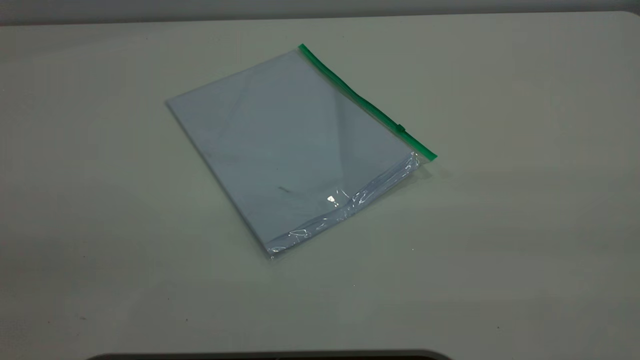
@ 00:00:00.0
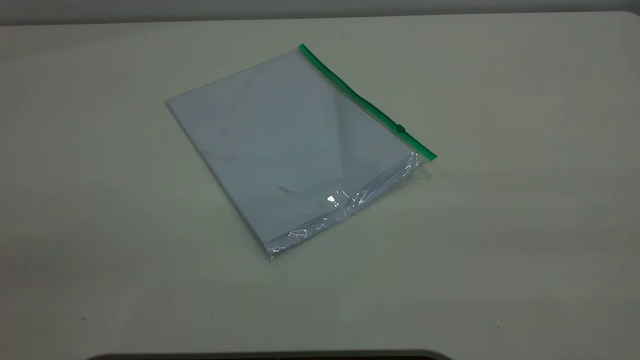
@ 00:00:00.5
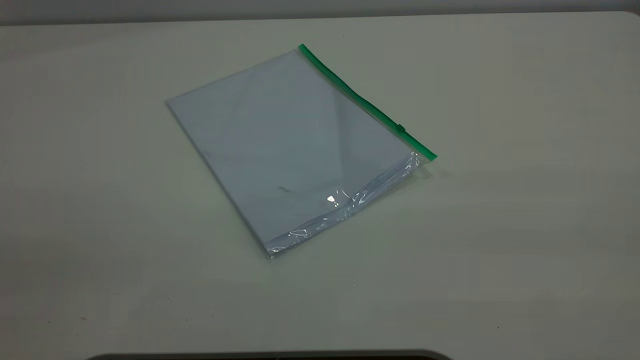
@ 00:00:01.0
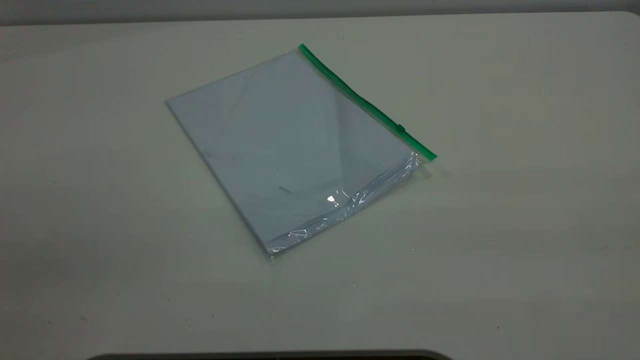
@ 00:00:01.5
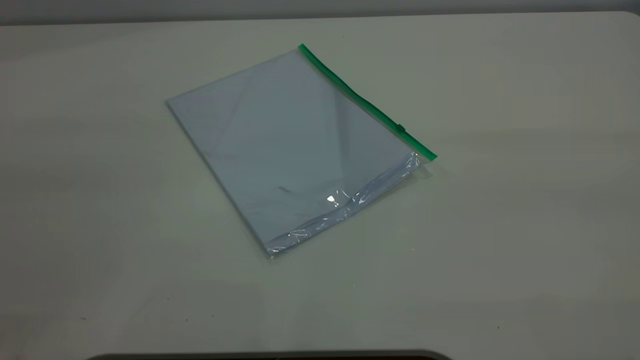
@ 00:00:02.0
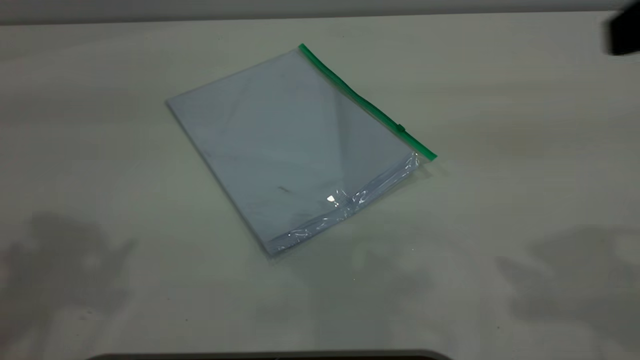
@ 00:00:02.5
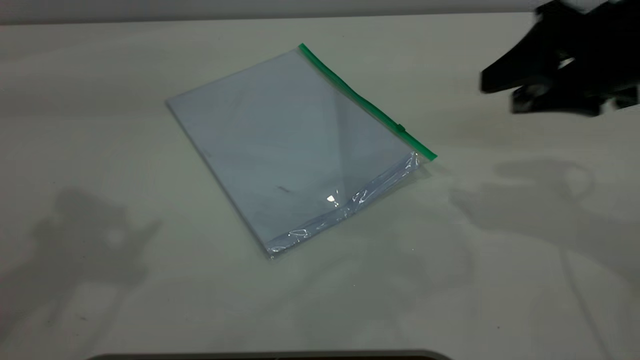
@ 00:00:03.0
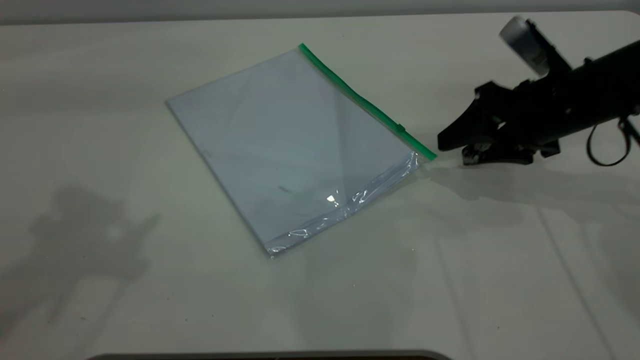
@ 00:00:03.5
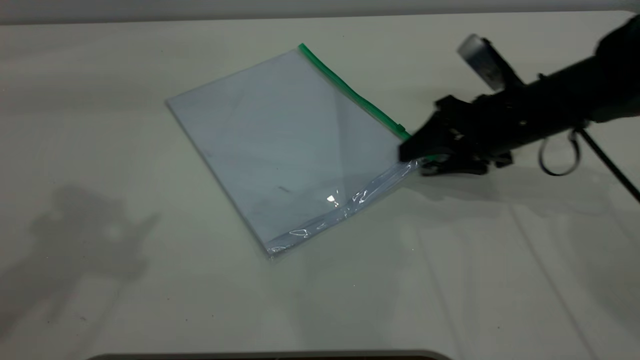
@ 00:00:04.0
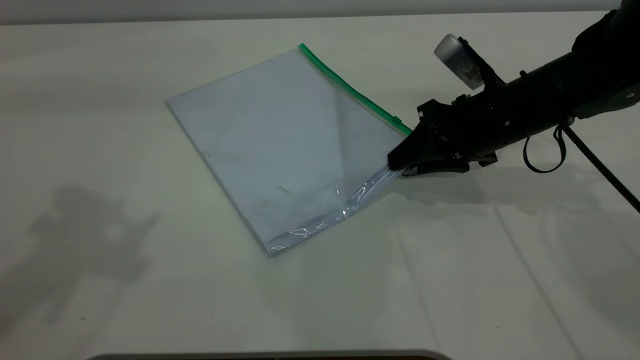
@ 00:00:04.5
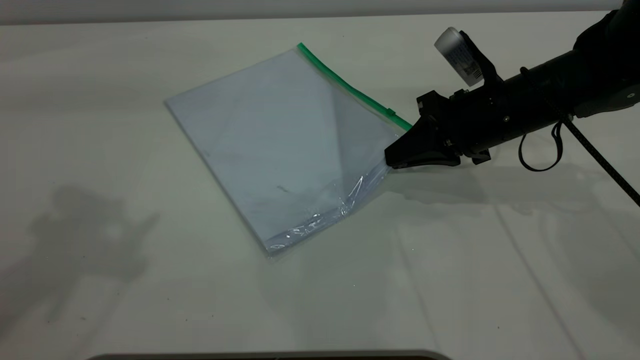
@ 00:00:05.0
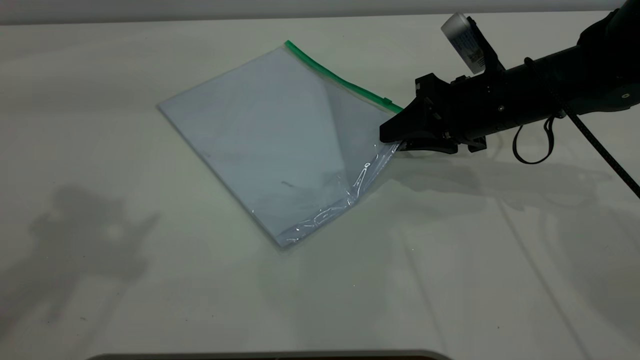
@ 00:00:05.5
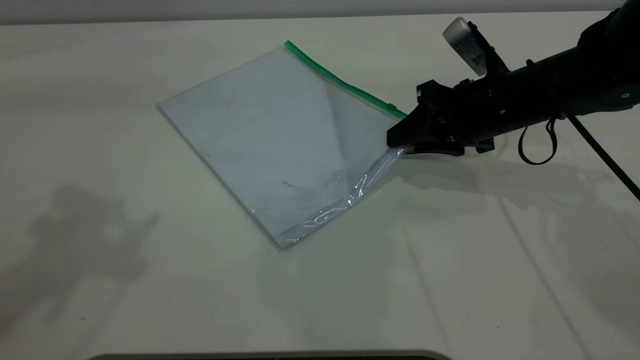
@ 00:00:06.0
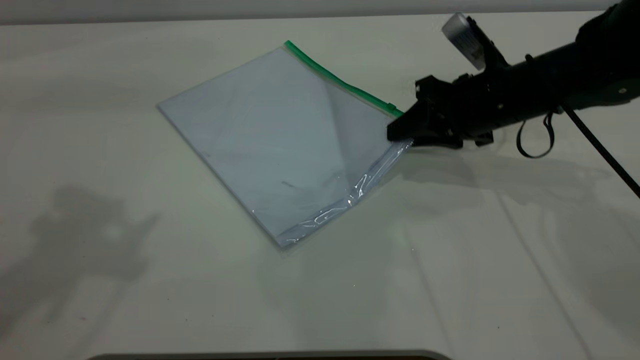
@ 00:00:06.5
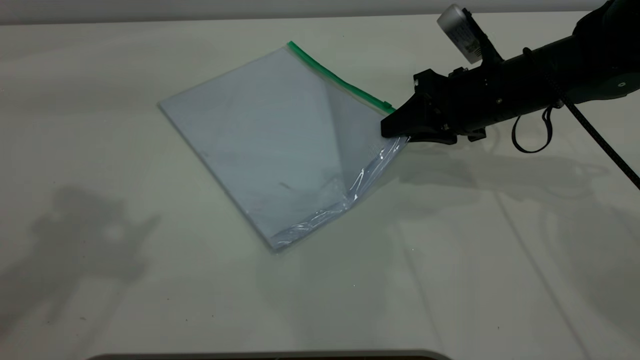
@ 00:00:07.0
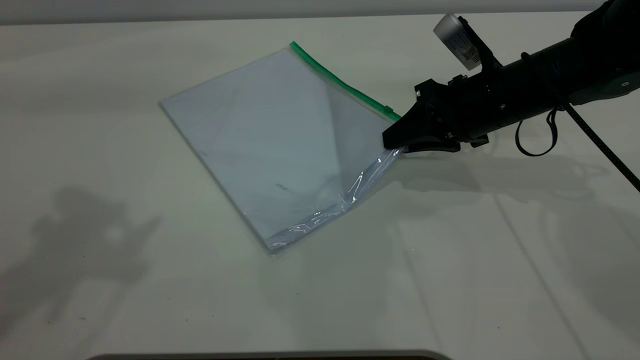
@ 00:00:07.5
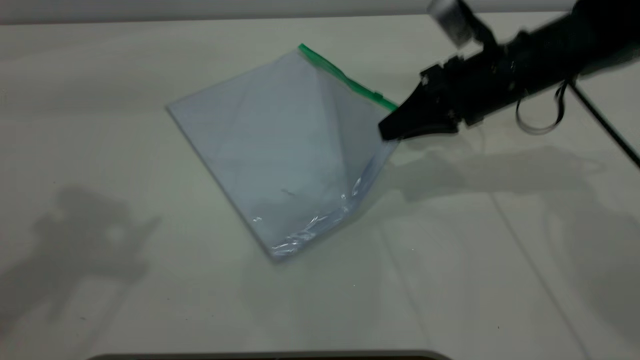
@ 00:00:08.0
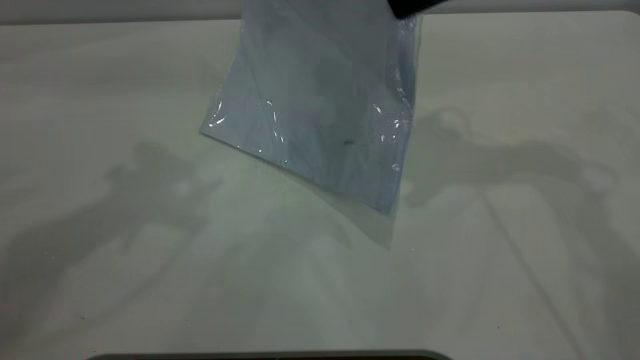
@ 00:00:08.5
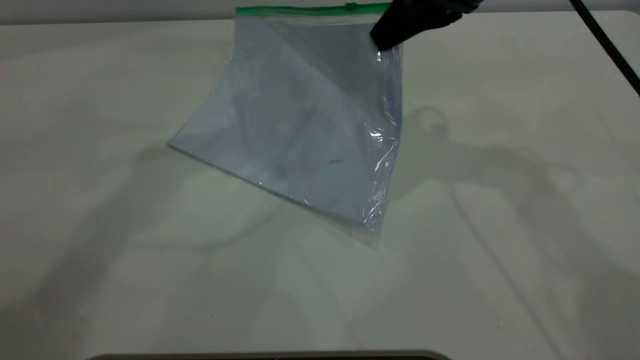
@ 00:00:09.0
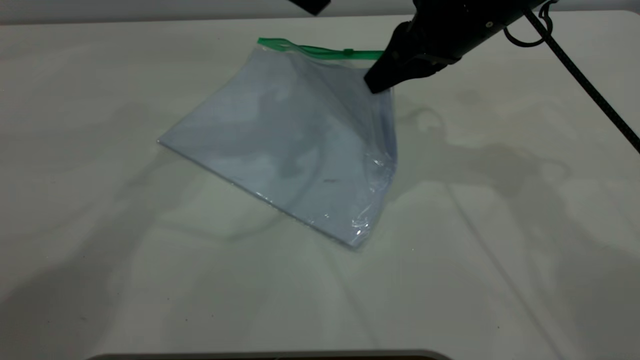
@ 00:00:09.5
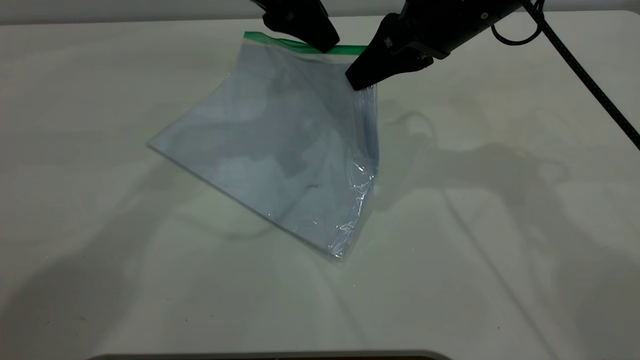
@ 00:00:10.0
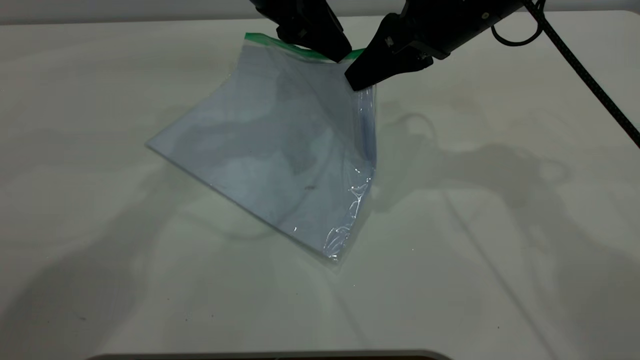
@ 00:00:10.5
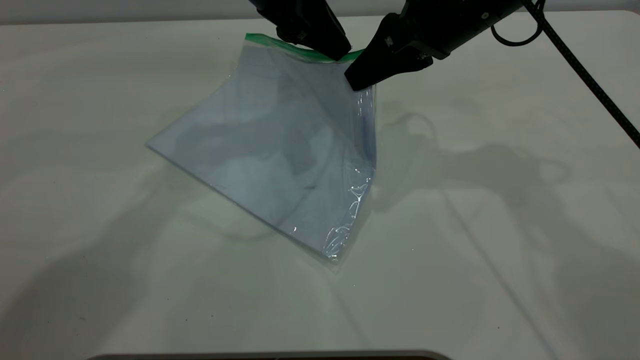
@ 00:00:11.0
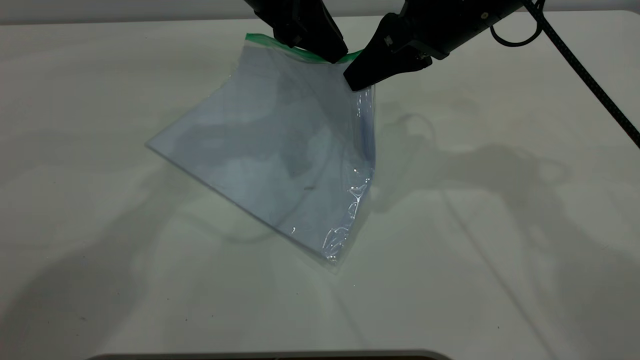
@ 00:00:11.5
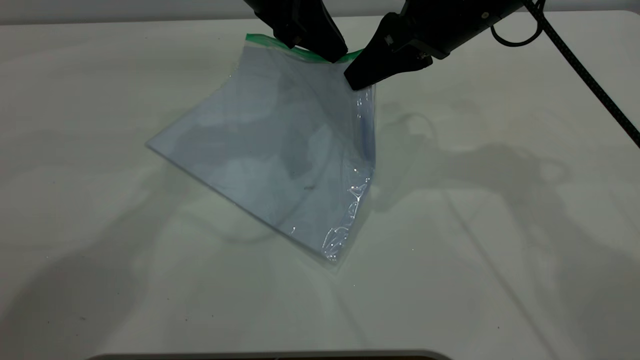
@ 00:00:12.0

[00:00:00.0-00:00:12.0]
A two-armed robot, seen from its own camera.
Step, 00:00:00.0 to 00:00:08.0: Pick up the transparent plastic bag with the right gripper.
00:00:02.0 to 00:00:04.0: The right gripper heads downward and forward, covering about 40 cm.
00:00:04.0 to 00:00:06.0: The right gripper closes its fingers.
00:00:06.0 to 00:00:08.0: The right gripper goes roughly 5 cm upward, and closes up.
00:00:08.0 to 00:00:10.0: The left gripper is displaced to the right, forward and downward by some 30 cm; the right gripper heads upward, covering about 5 cm.
00:00:10.0 to 00:00:12.0: The left gripper closes its fingers.

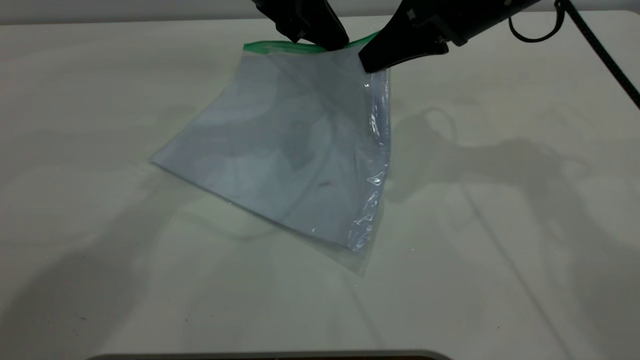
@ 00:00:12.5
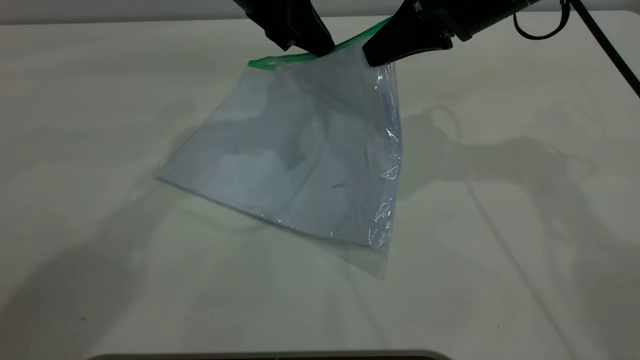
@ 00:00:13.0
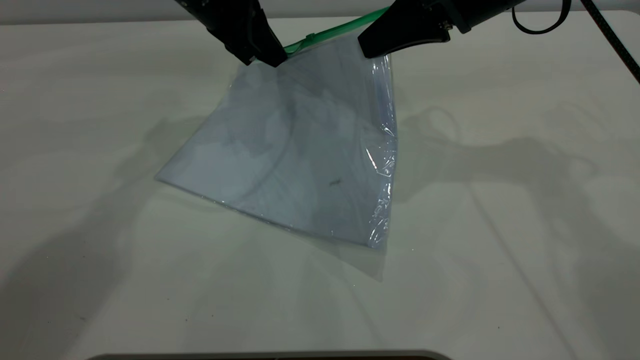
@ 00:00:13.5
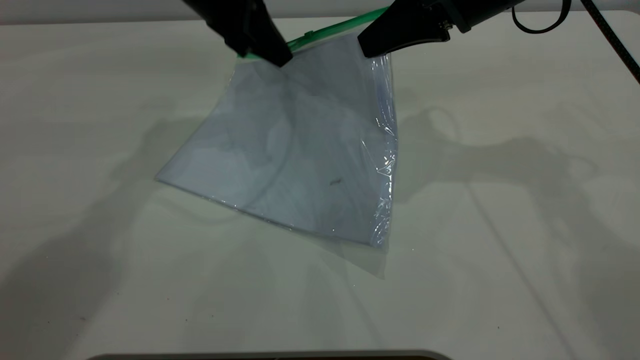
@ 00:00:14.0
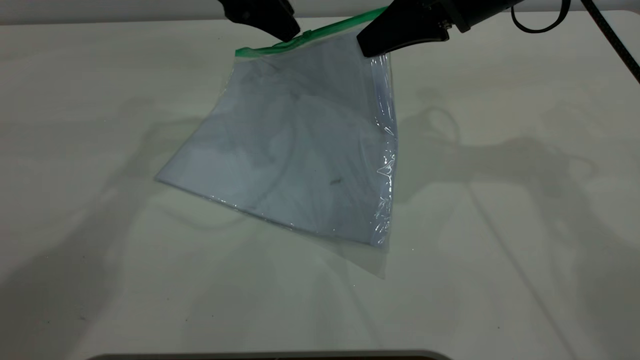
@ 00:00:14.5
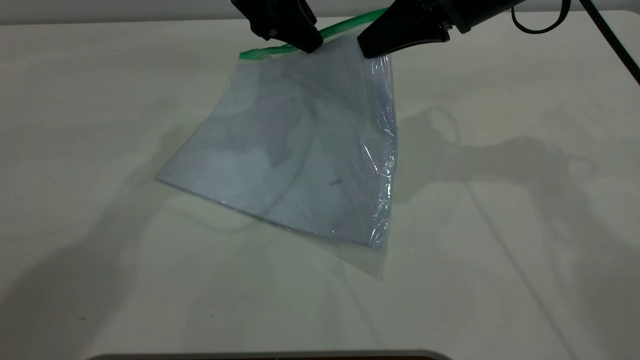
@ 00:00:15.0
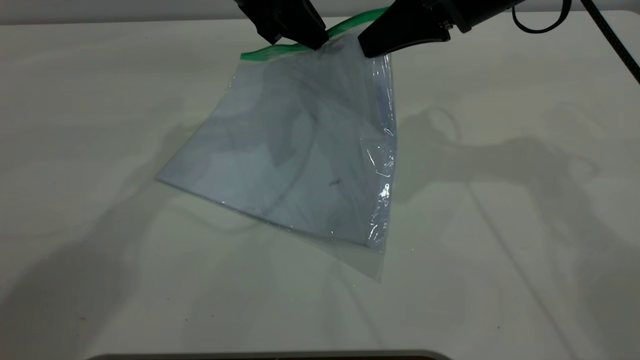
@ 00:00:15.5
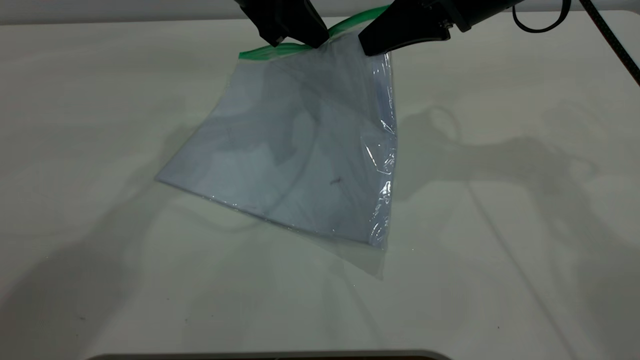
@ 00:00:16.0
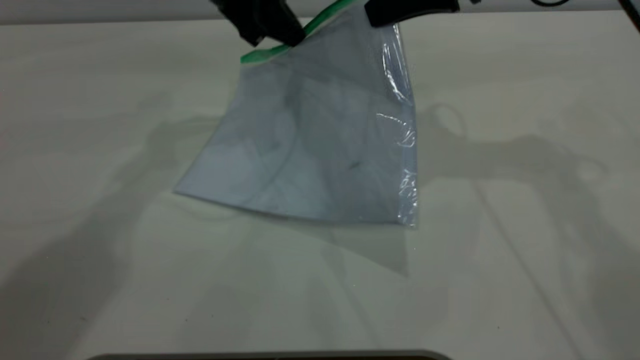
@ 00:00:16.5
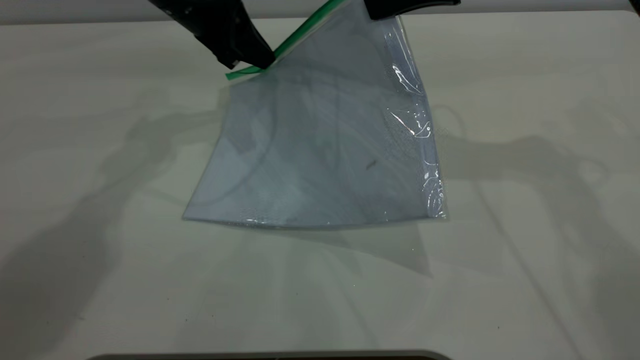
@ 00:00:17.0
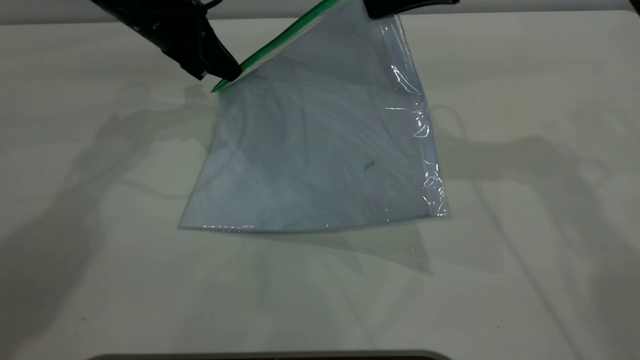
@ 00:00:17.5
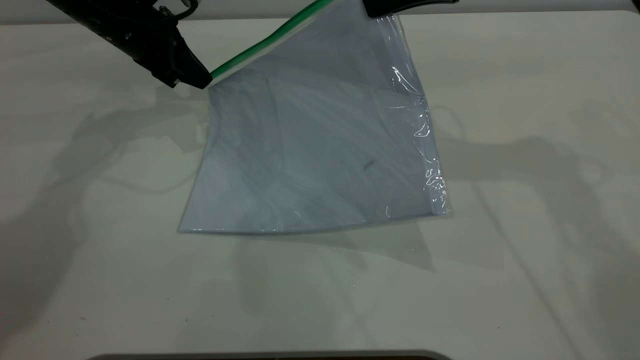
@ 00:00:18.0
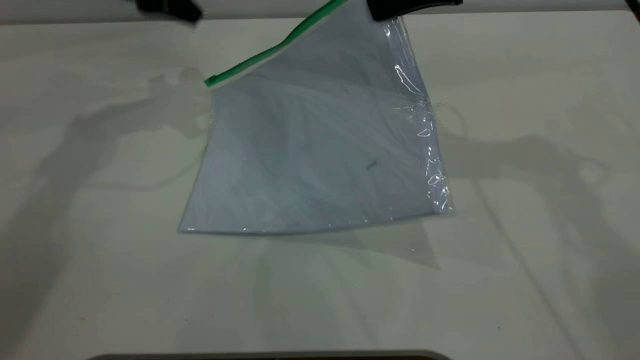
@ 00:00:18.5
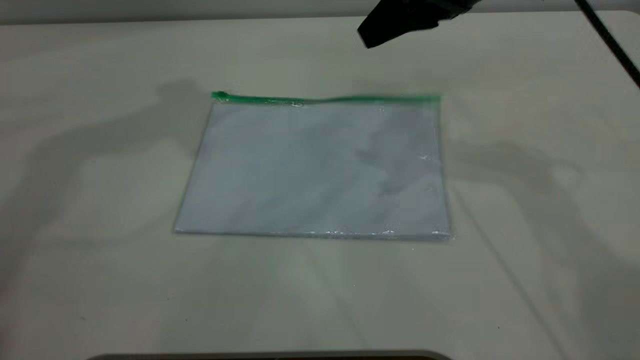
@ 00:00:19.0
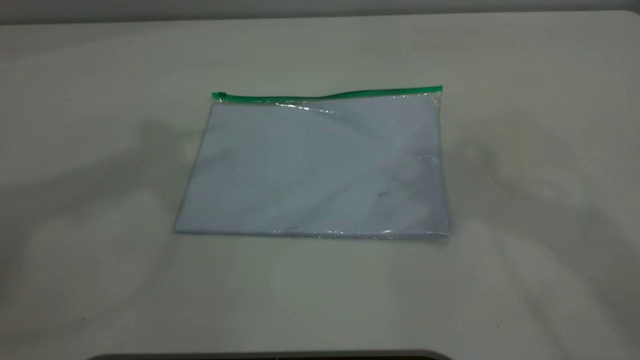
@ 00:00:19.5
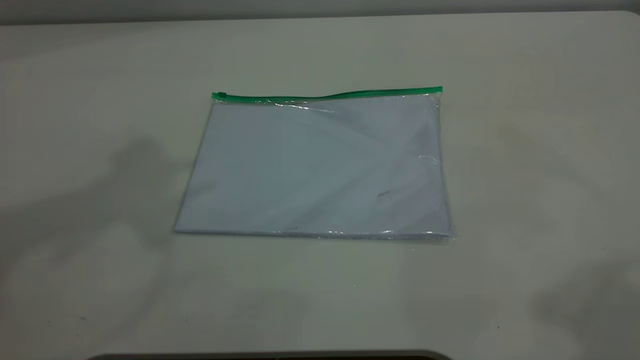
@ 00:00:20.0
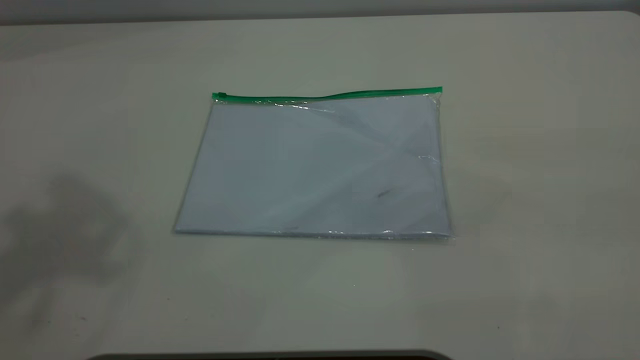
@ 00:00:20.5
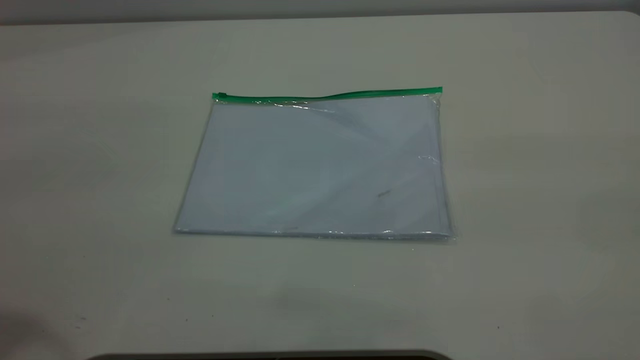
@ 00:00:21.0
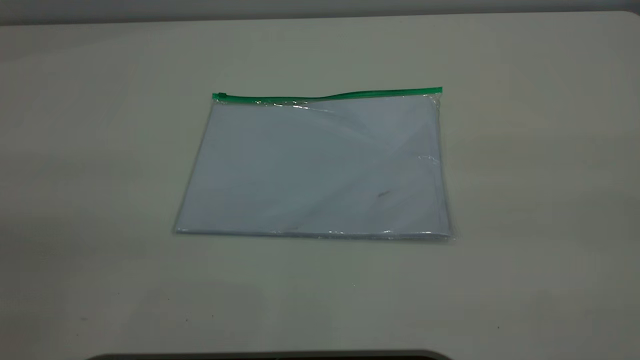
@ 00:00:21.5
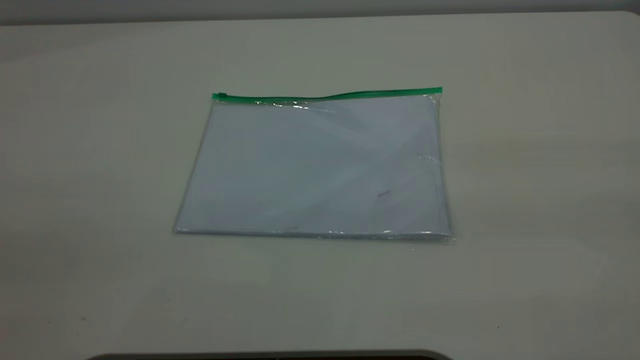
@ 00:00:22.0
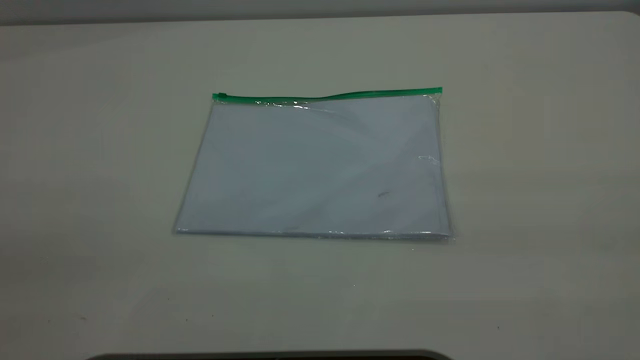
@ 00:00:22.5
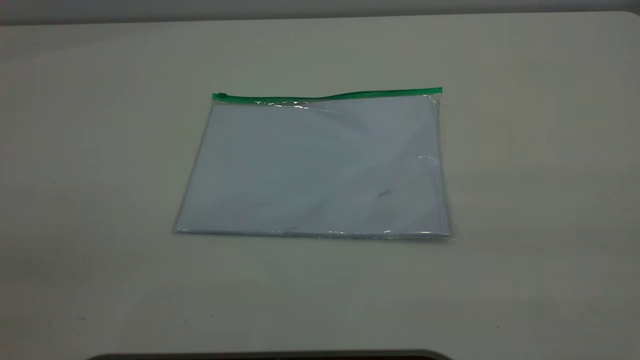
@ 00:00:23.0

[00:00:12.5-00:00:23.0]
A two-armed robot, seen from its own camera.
Step, 00:00:12.5 to 00:00:18.0: Pulling up the zipper on the transparent plastic bag with the left gripper to close it.
Step, 00:00:18.5 to 00:00:19.0: Place the transparent plastic bag.
00:00:12.5 to 00:00:14.5: The left gripper opens.
00:00:14.5 to 00:00:16.5: The left gripper closes its fingers.
00:00:16.5 to 00:00:19.0: The right gripper opens up, while the left gripper is displaced upward and to the left by approximately 25 cm, and opens its fingers.
00:00:19.0 to 00:00:21.0: The right gripper goes roughly 35 cm backward and to the right, while the left gripper goes roughly 30 cm backward.
